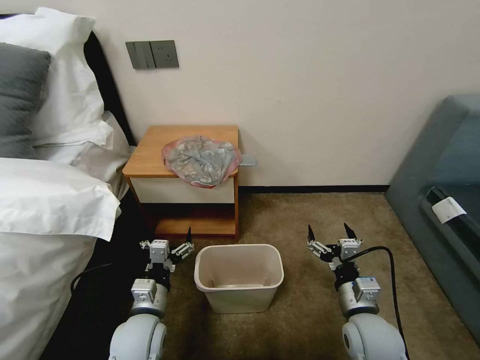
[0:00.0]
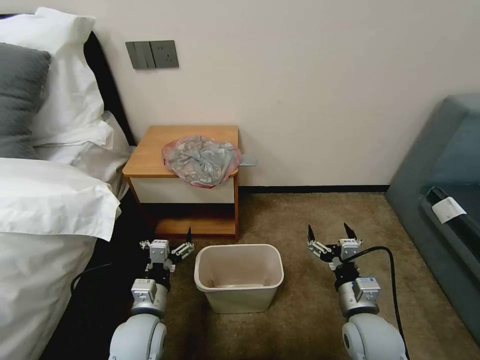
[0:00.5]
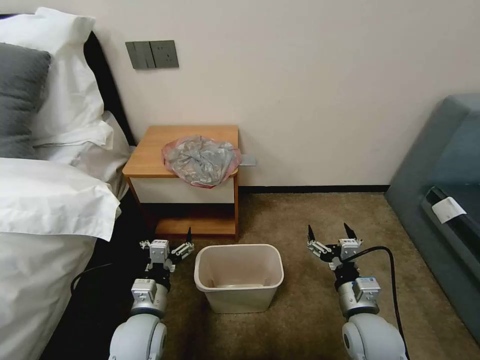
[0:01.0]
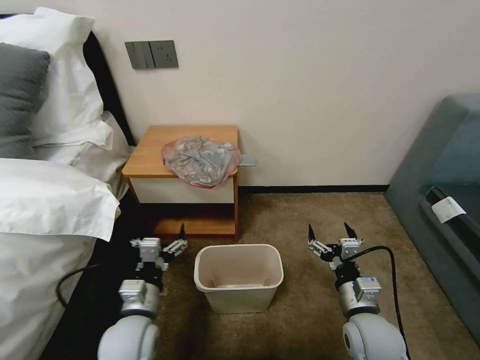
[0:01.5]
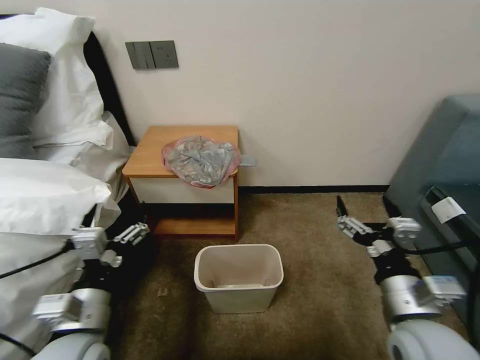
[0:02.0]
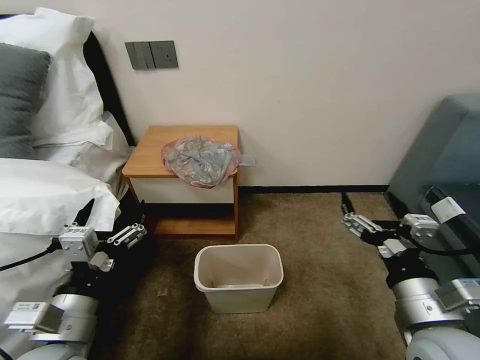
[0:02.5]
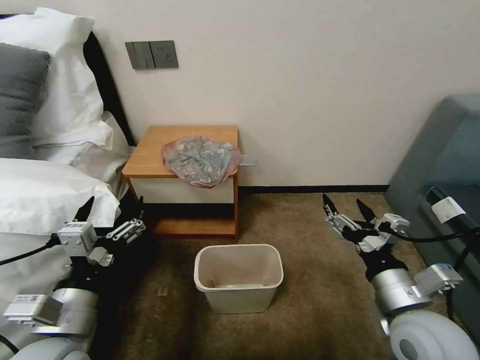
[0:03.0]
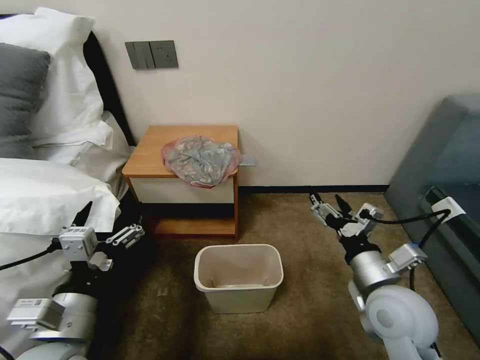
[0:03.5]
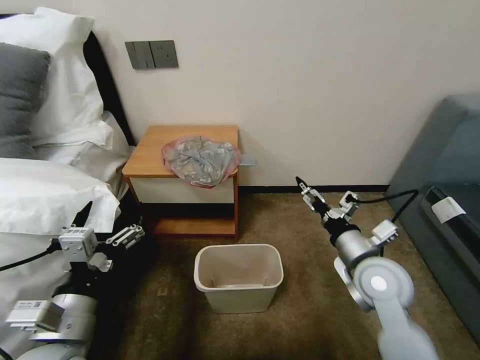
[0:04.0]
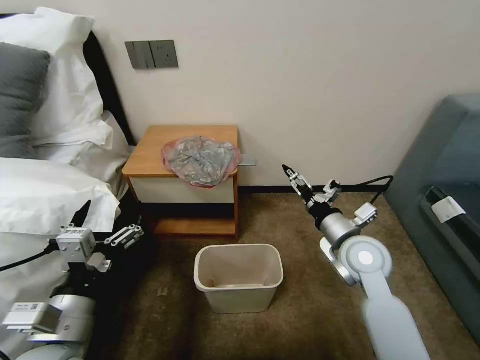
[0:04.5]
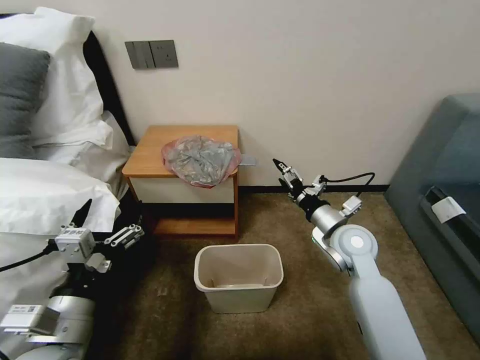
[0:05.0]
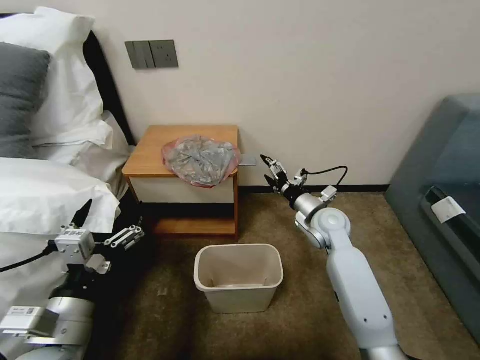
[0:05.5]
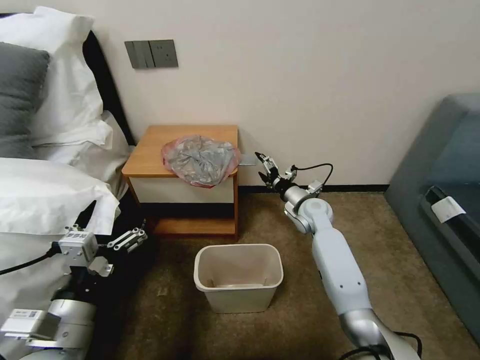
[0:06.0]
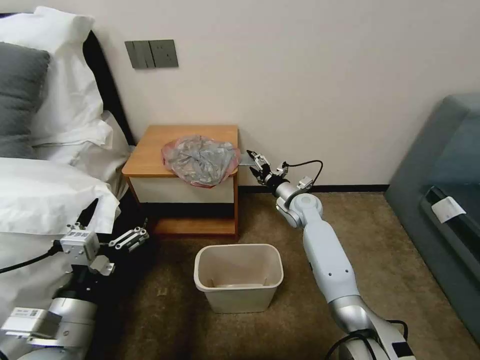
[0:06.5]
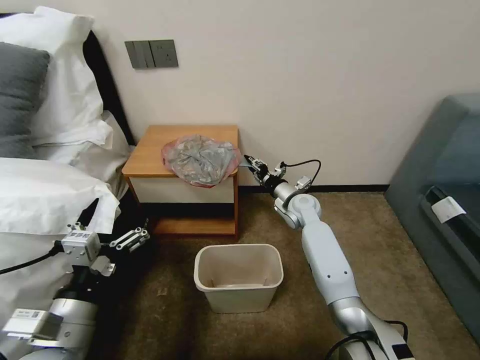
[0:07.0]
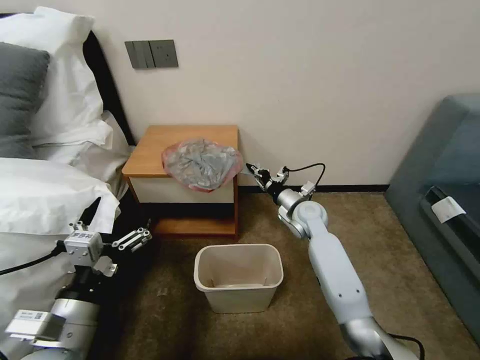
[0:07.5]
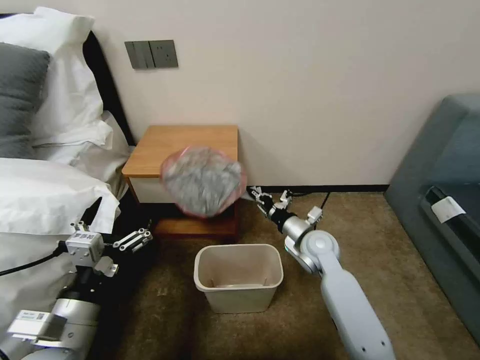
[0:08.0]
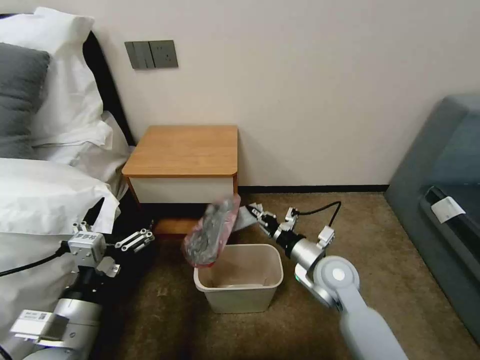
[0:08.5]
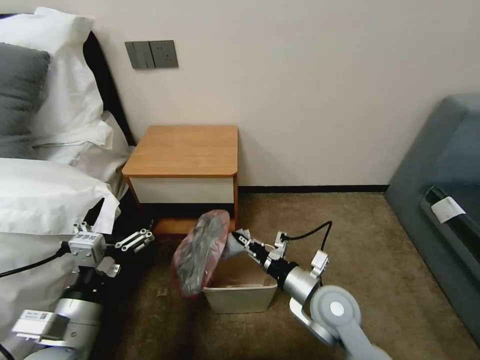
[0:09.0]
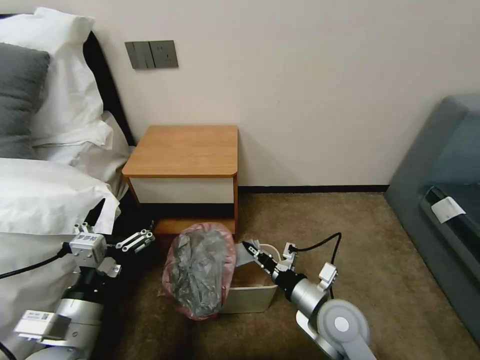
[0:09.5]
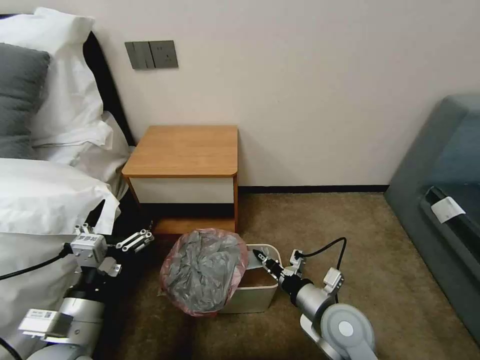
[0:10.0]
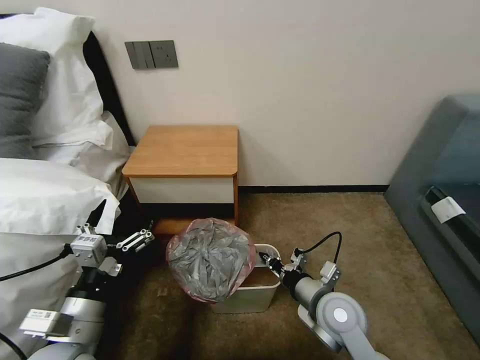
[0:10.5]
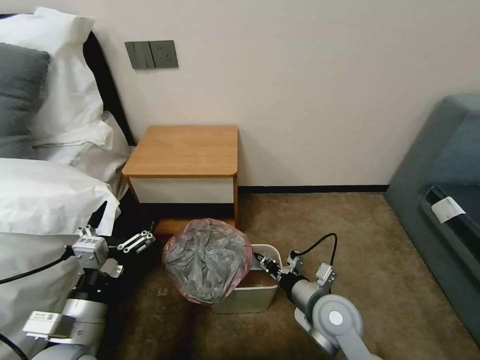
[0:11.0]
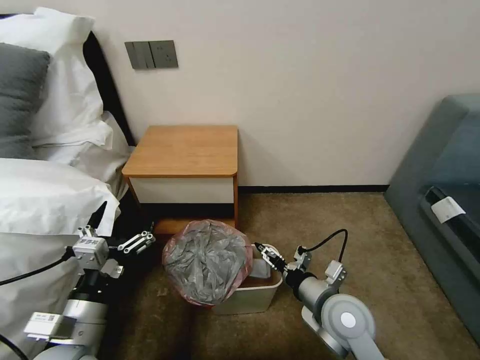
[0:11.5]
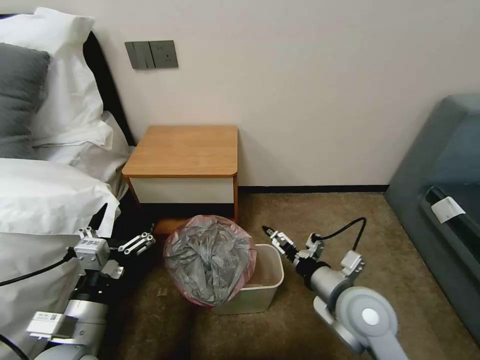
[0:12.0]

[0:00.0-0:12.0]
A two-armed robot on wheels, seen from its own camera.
Task of the whole recording: Pick up the garbage bag from the table and place it over the trash can.
0:02.0 to 0:04.0: The right gripper heads forward, covering about 10 cm.
0:04.0 to 0:06.0: The right gripper goes approximately 20 cm forward.
0:06.0 to 0:08.0: The right gripper moves backward, approximately 10 cm, and closes its fingers.
0:08.0 to 0:10.0: The right gripper heads backward, covering roughly 15 cm.
0:10.0 to 0:12.0: The right gripper shifts approximately 5 cm upward, and opens up.

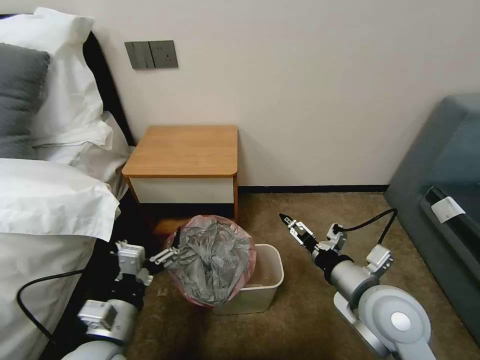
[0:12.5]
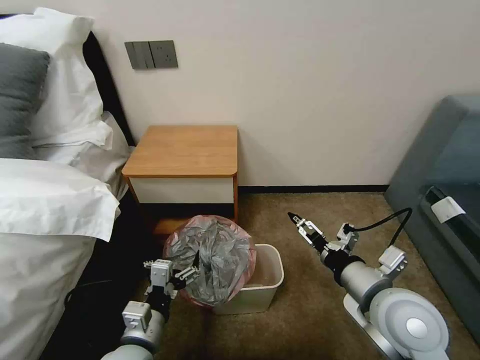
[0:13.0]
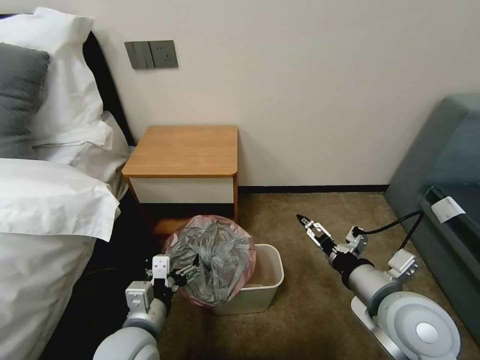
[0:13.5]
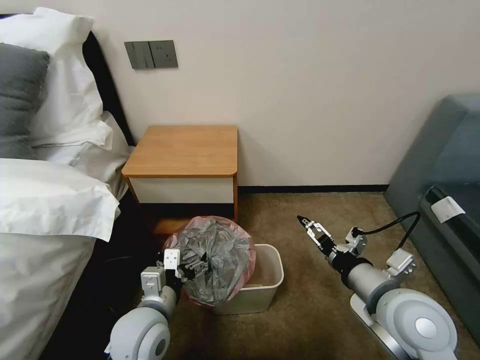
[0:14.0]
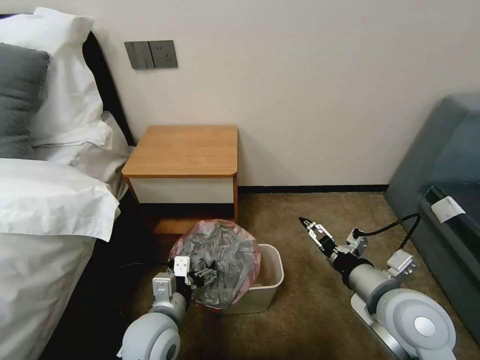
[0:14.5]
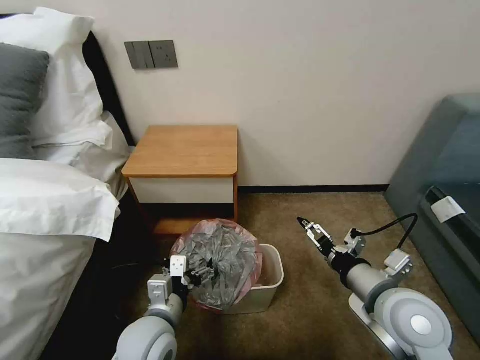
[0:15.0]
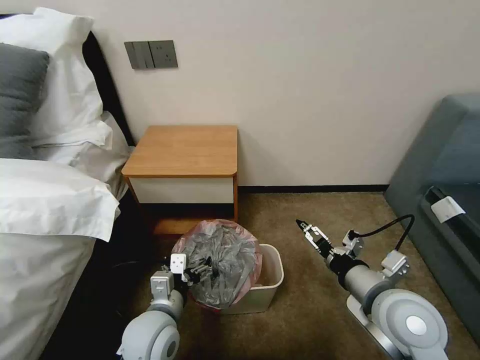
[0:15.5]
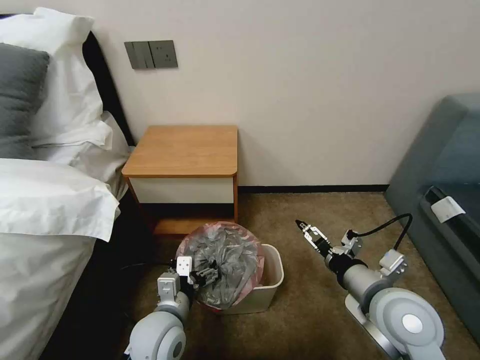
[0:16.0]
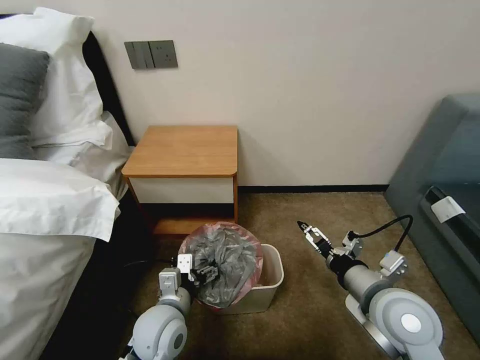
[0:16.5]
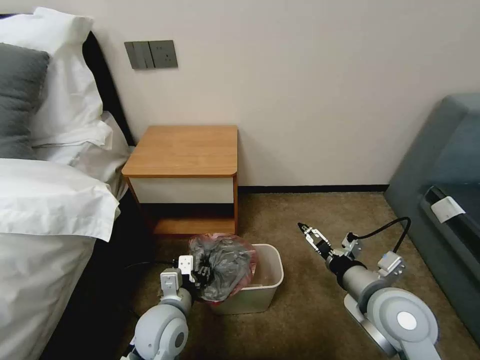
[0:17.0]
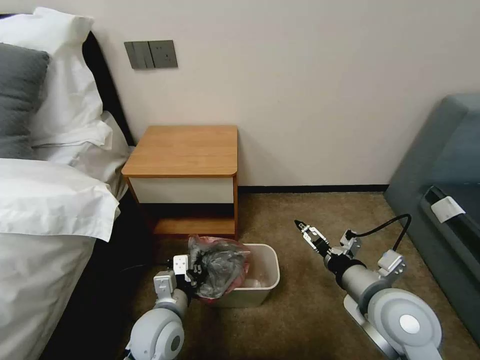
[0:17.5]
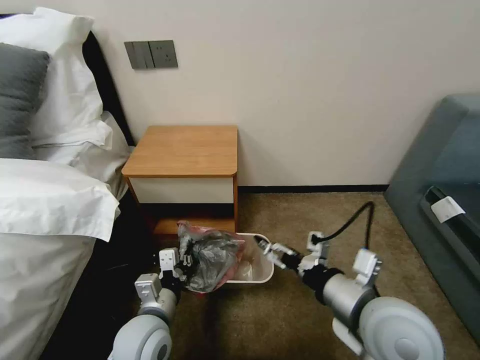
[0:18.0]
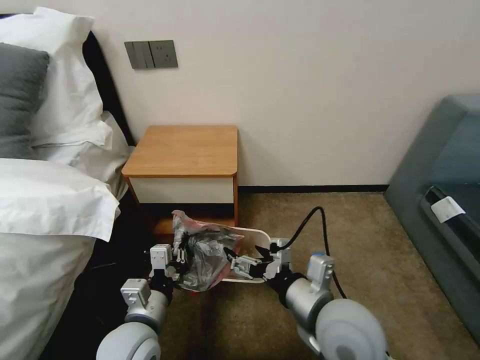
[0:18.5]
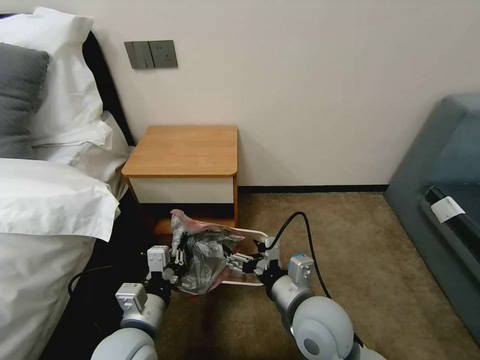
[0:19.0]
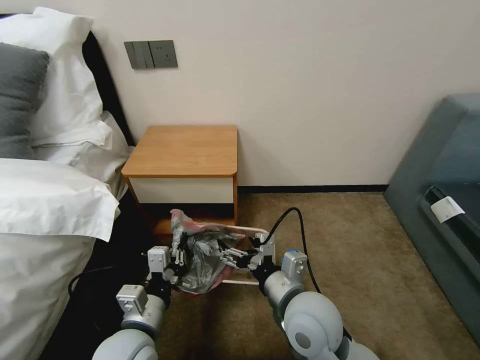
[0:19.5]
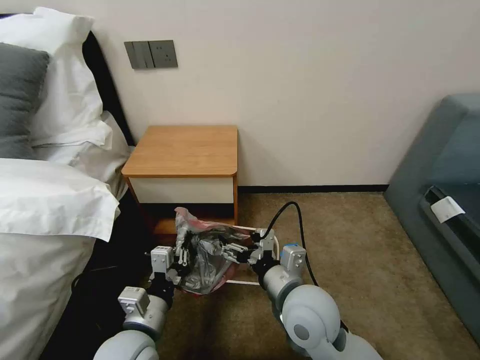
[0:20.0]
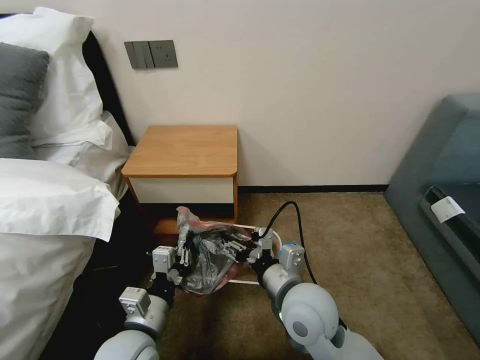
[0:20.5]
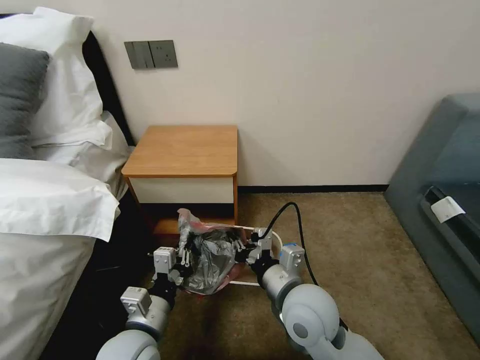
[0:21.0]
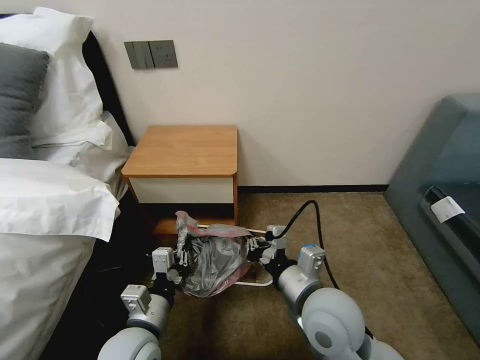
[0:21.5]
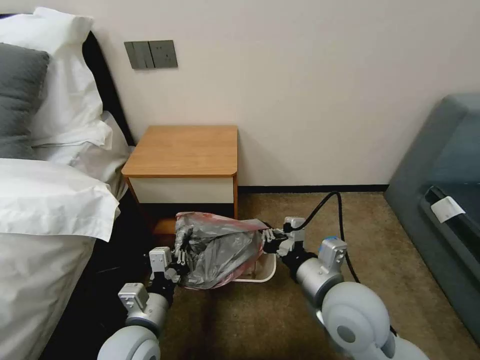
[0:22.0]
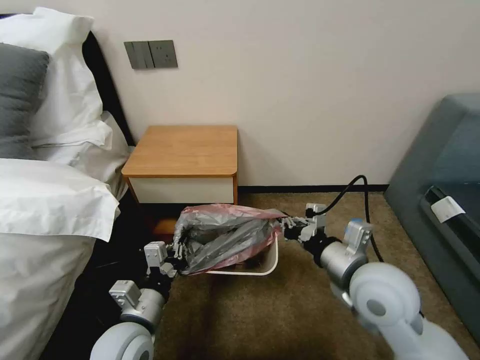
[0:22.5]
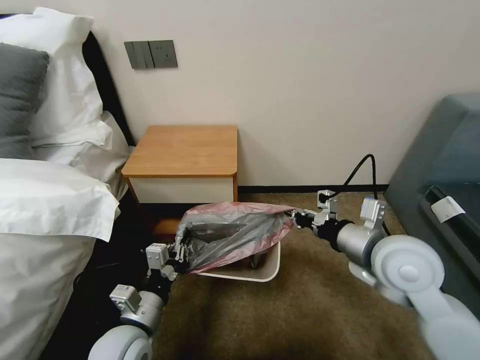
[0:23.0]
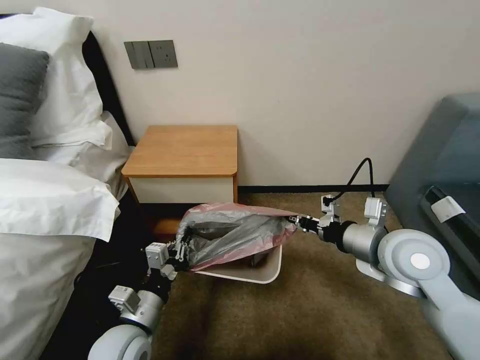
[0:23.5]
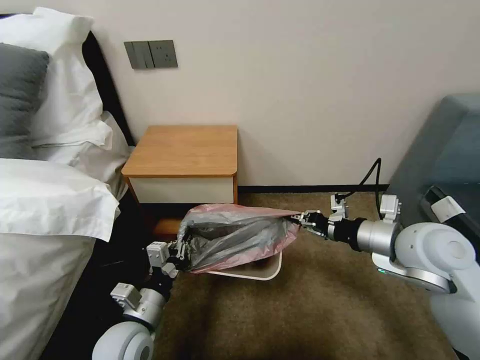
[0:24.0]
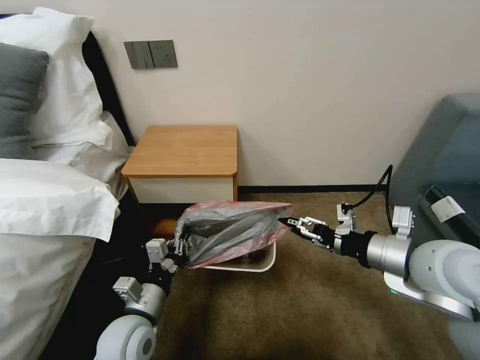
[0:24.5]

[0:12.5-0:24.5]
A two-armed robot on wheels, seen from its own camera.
Task of the whole recording: Pick up the garbage bag from the table and place it over the trash can.
0:12.5 to 0:14.5: The left gripper travels to the right and forward by approximately 10 cm.
0:14.5 to 0:16.5: The grippers make only small movements.
0:16.5 to 0:18.5: The right gripper travels to the left by some 10 cm, while the left gripper changes place by roughly 5 cm, and closes up.
0:18.5 to 0:20.5: The right gripper ends up about 5 cm from where it was.
0:20.5 to 0:22.5: The right gripper travels to the right and upward by roughly 10 cm, and closes up.
0:22.5 to 0:24.5: The right gripper moves to the right and upward, roughly 10 cm, and opens up.

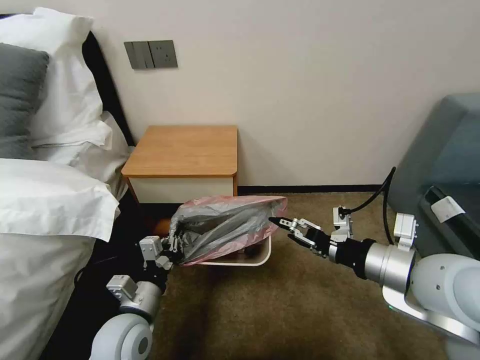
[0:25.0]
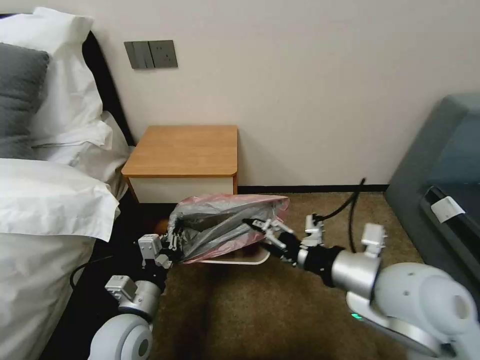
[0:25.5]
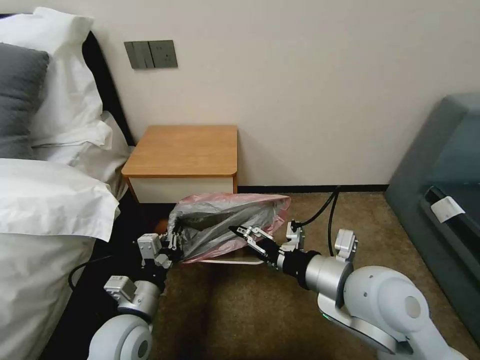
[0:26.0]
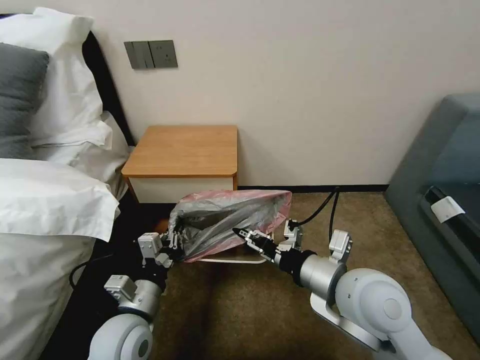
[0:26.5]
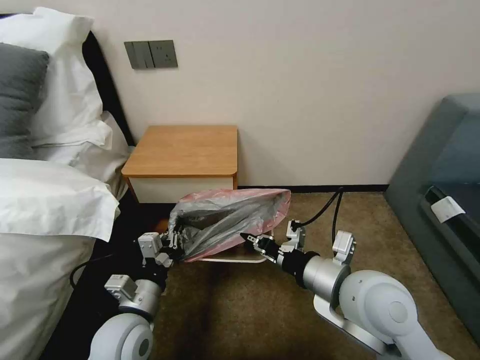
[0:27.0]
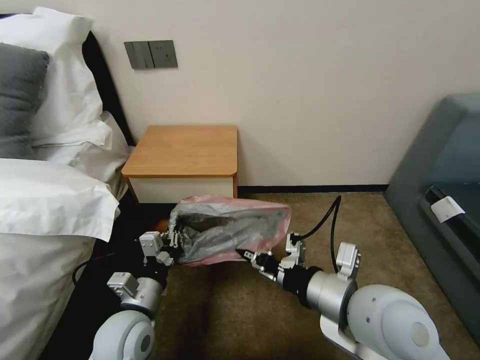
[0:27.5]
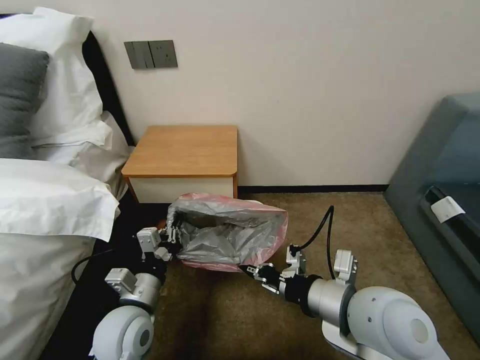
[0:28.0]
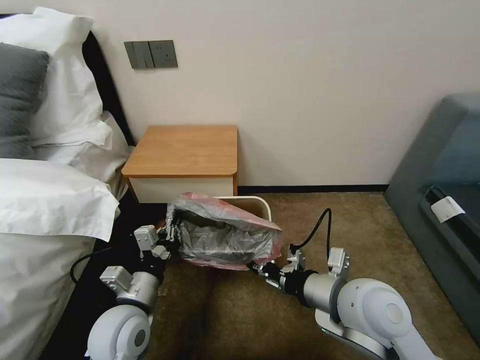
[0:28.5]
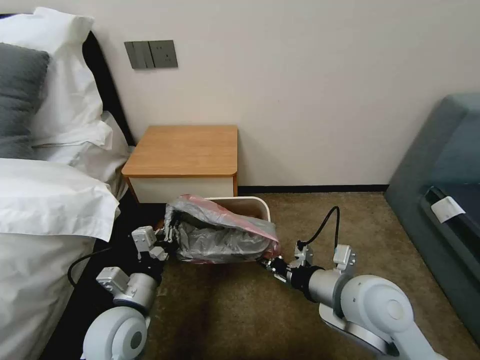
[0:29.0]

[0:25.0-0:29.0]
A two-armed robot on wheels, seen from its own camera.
Task of the whole recording: Pick up the garbage bag from the table and place it over the trash can.
0:25.0 to 0:27.0: The right gripper moves to the left, about 10 cm, and closes its fingers.
0:27.0 to 0:29.0: The grippers make only small movements.
